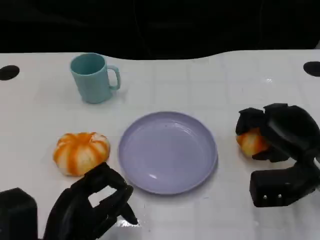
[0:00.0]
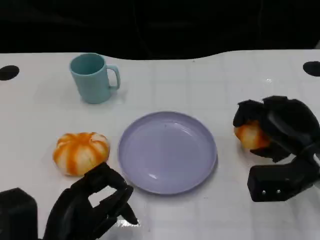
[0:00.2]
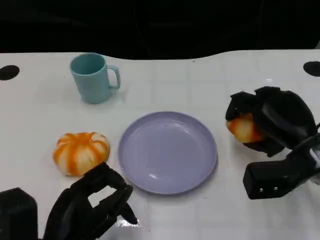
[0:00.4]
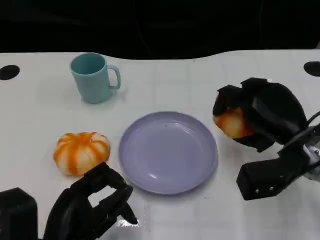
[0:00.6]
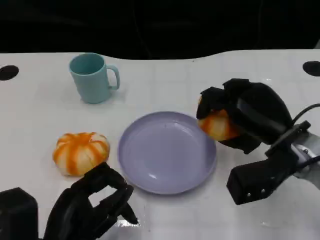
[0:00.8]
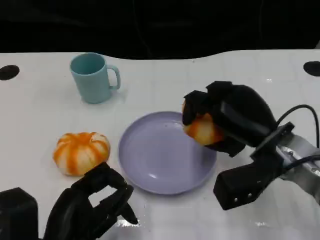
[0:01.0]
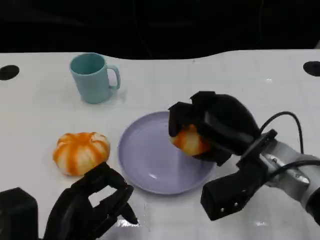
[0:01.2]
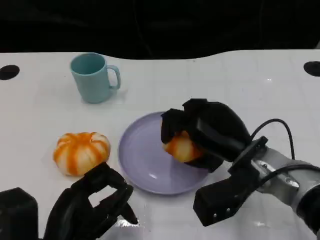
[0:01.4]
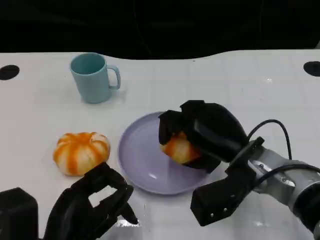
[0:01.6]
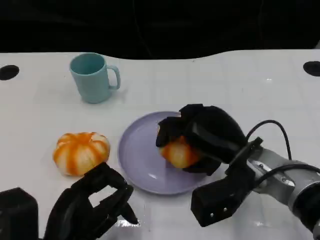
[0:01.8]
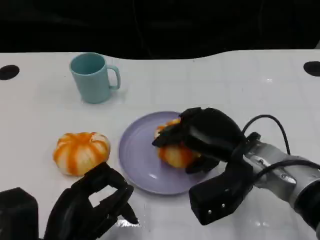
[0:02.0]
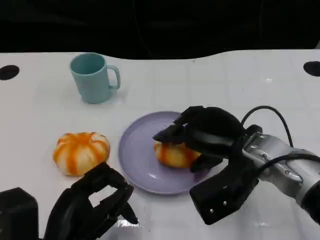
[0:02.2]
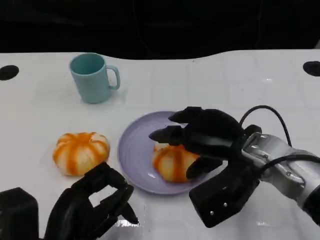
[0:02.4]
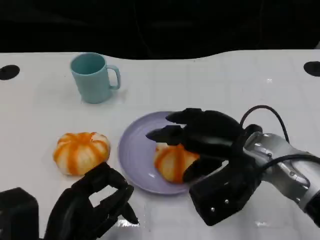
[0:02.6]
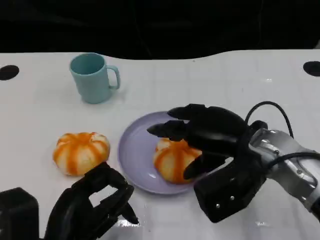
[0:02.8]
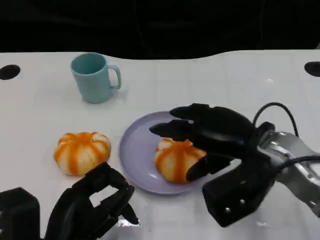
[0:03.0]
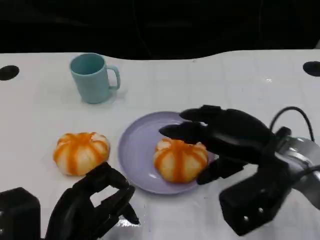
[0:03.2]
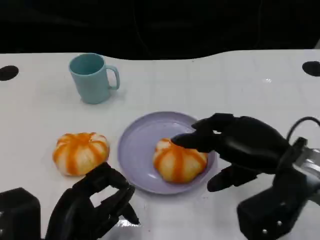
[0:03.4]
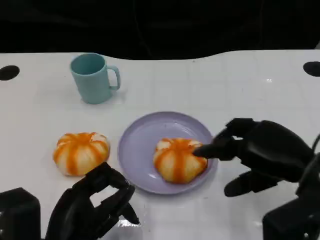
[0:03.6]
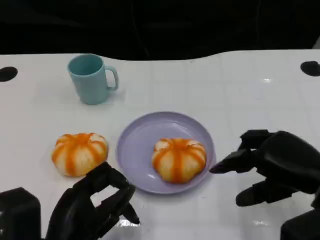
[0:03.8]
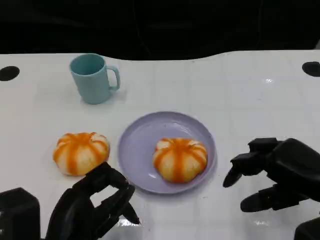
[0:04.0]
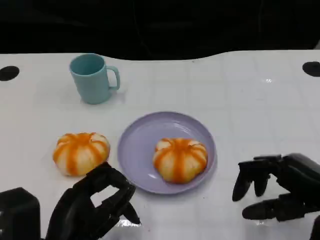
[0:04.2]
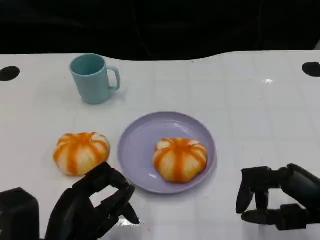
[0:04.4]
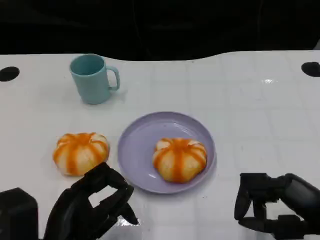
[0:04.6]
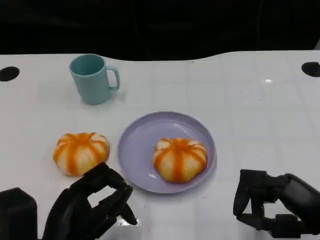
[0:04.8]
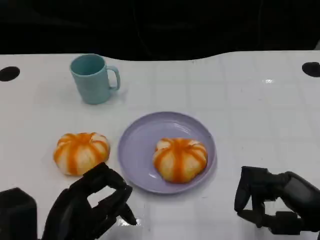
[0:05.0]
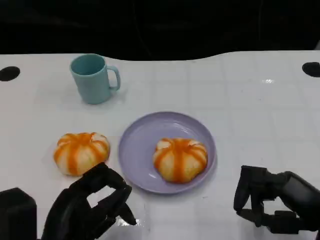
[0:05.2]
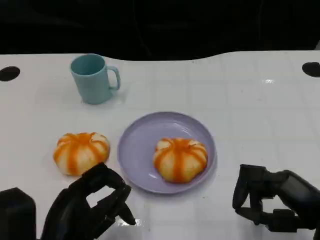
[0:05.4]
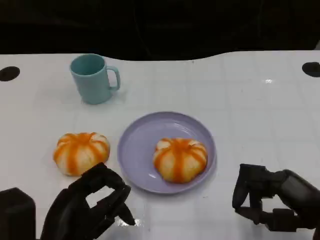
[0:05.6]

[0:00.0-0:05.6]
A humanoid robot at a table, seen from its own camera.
Task of the whole recording: Grasp the bread from the table and place it into the plate.
0:00.0 to 0:01.4: The right hand heads to the left, covering about 10 cm.
0:02.8 to 0:04.2: The right hand is displaced to the right and backward by roughly 15 cm.

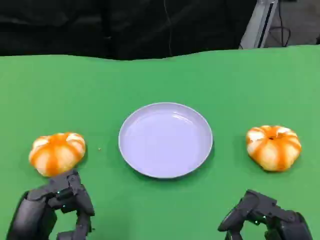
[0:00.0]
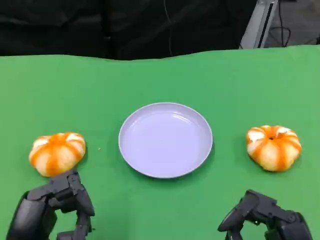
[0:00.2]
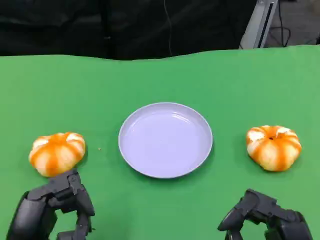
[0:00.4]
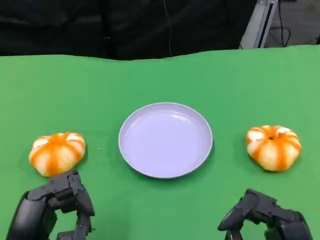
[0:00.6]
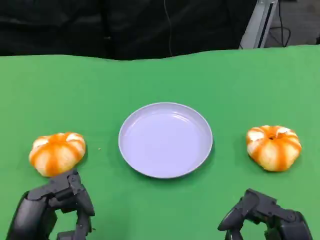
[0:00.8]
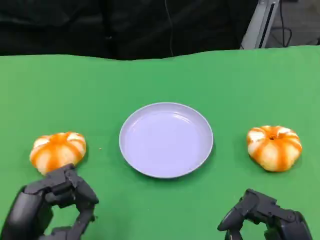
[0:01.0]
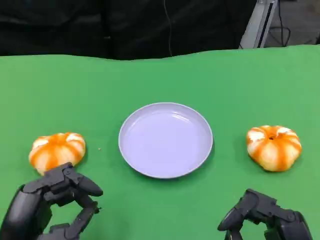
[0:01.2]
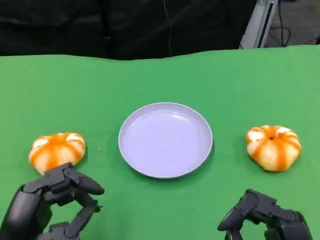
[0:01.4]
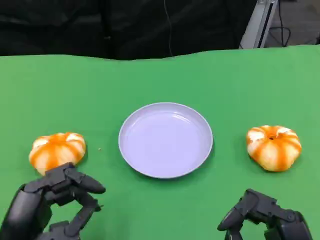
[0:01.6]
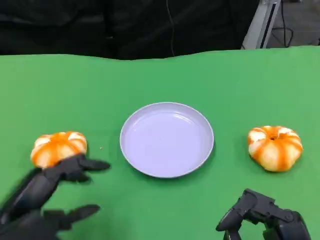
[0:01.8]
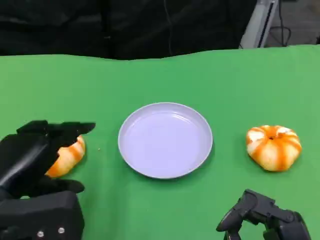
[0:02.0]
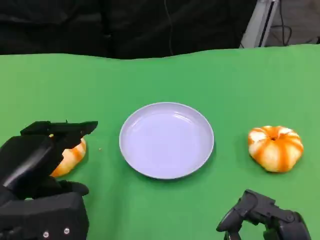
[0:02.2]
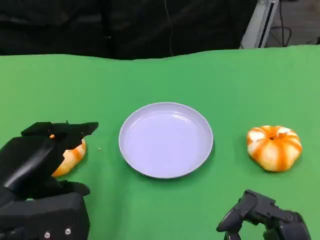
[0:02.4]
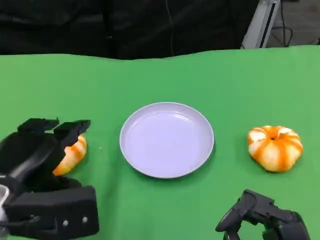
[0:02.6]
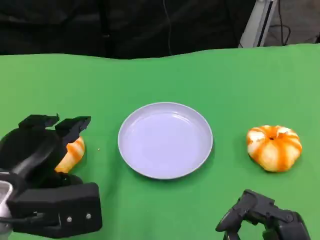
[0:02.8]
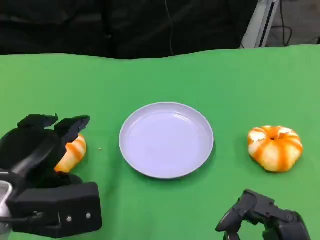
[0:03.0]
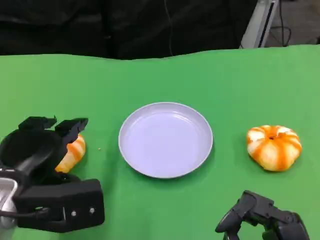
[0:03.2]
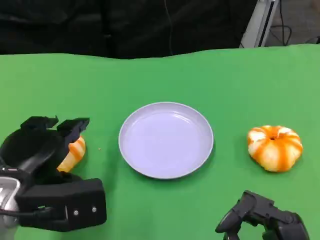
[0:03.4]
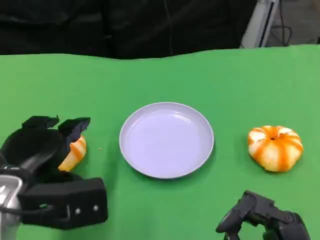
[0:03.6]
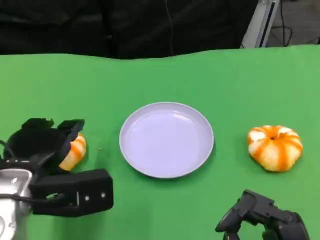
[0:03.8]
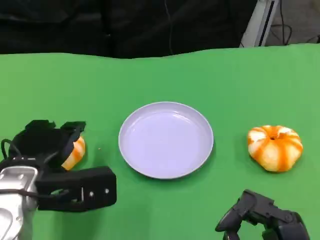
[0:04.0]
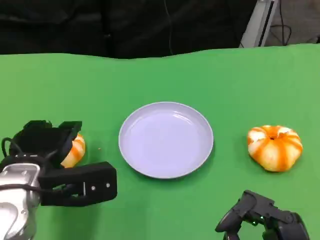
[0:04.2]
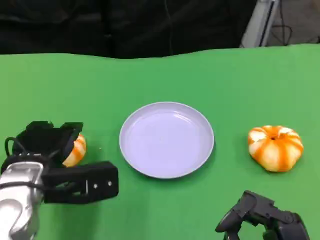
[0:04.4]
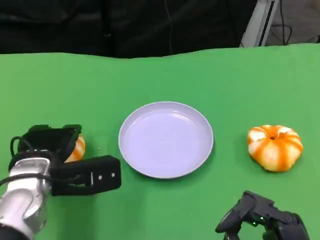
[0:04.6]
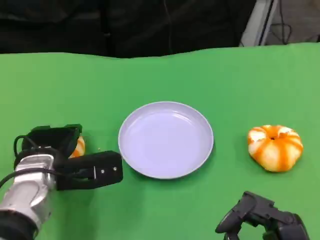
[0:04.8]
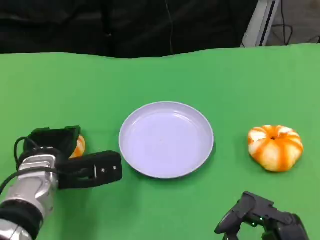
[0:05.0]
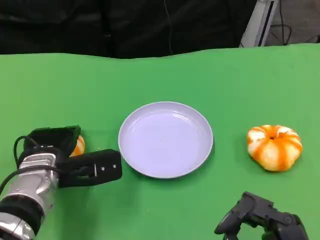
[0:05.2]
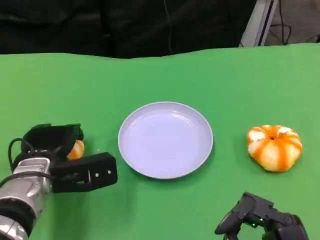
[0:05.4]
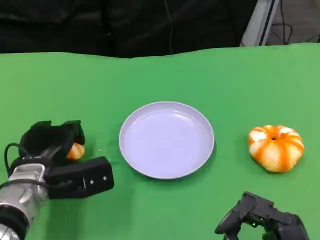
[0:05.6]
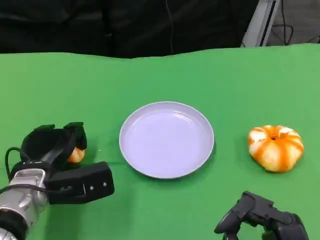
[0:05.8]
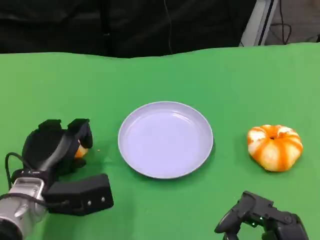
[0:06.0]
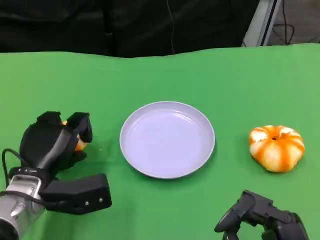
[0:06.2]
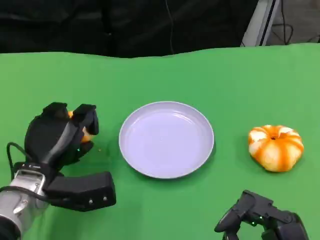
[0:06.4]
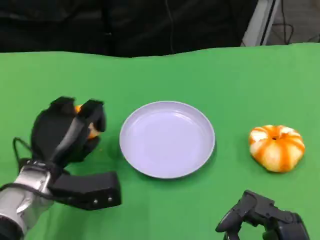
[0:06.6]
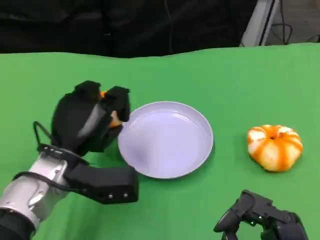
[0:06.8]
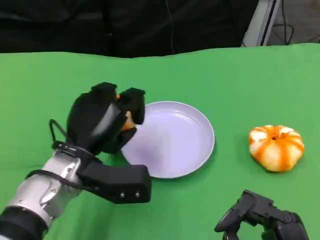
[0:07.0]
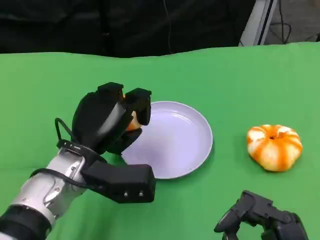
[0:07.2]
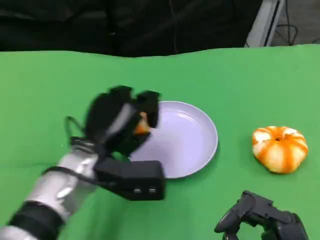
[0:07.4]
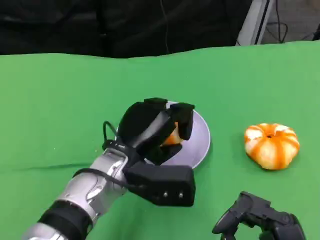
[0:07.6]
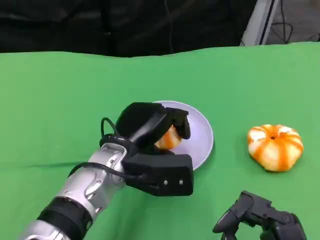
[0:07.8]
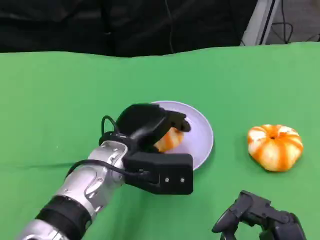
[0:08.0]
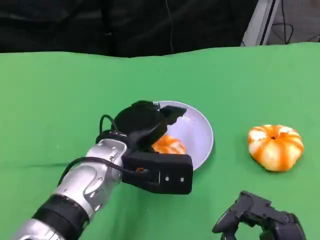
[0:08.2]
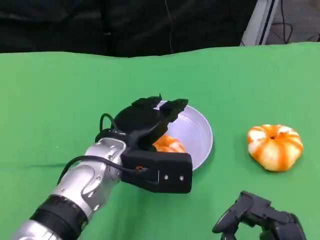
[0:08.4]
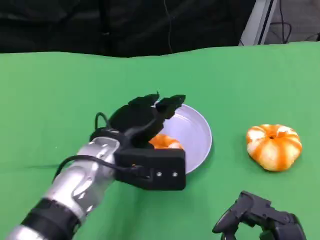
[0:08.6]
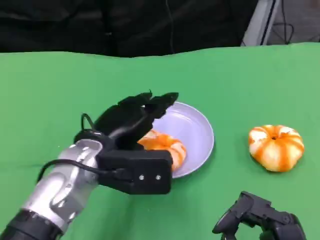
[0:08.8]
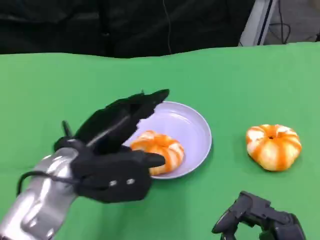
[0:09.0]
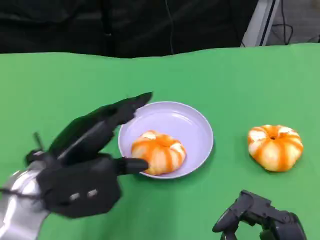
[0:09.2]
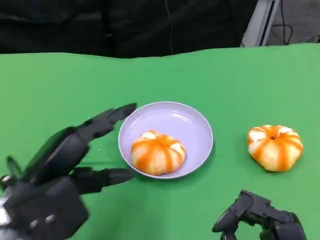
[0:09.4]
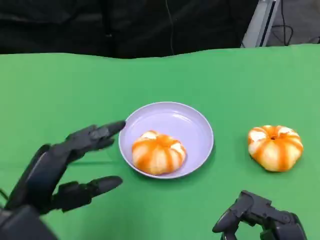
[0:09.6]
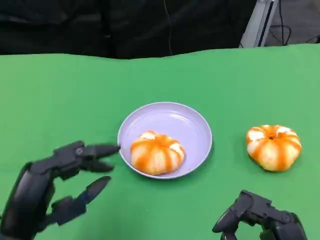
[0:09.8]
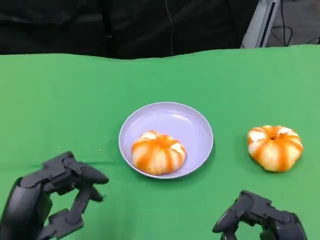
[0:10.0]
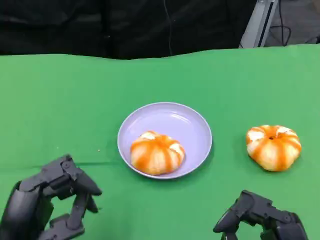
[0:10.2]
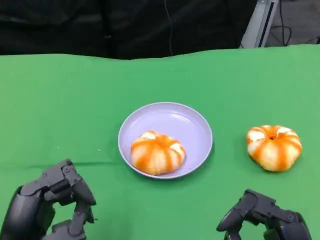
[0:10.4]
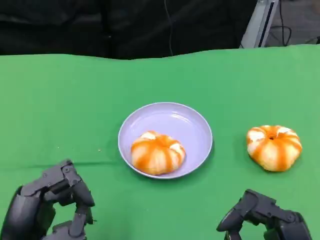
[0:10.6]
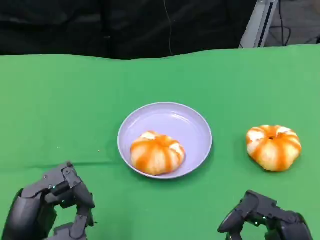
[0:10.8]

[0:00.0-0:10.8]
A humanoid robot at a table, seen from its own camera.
Task of the whole recording: Grasp the bread from the table and place it into the plate.
0:00.0 to 0:01.6: The hands move only a little.
0:01.6 to 0:03.0: The left hand moves forward and upward, some 10 cm.
0:03.0 to 0:04.6: The left hand travels forward and downward by about 10 cm.
0:06.2 to 0:07.8: The left hand moves to the right and upward, about 15 cm.
0:07.8 to 0:09.2: The left hand moves to the left and backward, roughly 15 cm.
0:09.2 to 0:10.8: The left hand travels backward and downward by approximately 10 cm.

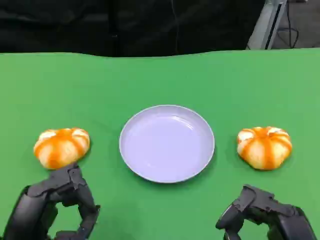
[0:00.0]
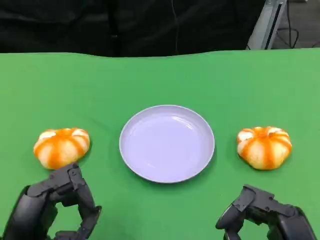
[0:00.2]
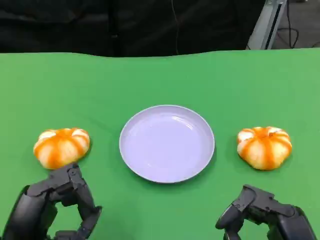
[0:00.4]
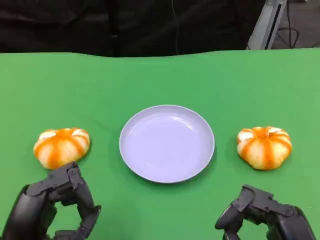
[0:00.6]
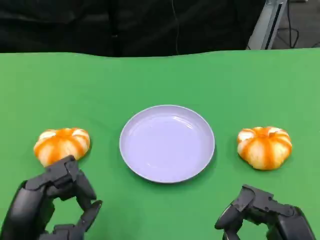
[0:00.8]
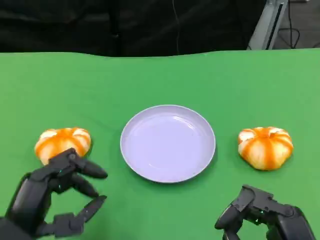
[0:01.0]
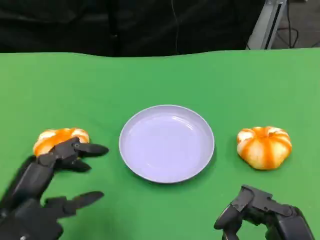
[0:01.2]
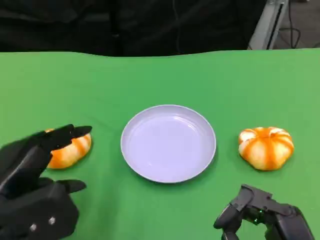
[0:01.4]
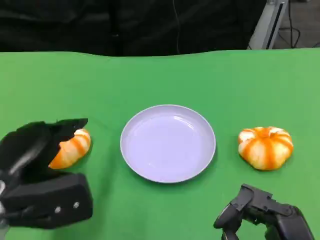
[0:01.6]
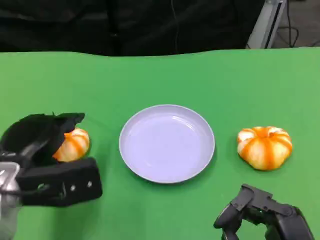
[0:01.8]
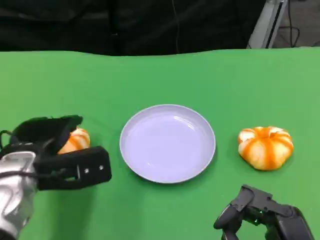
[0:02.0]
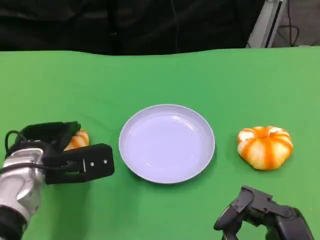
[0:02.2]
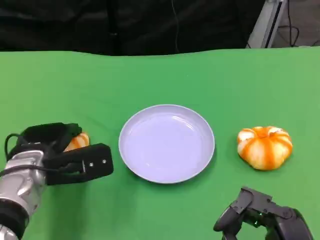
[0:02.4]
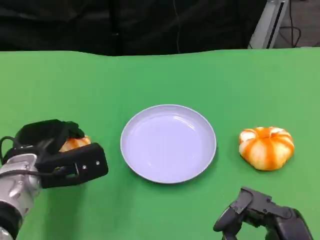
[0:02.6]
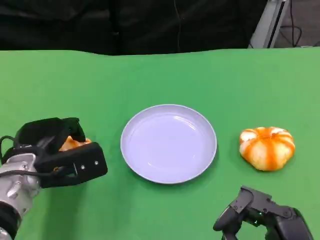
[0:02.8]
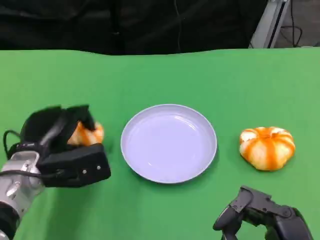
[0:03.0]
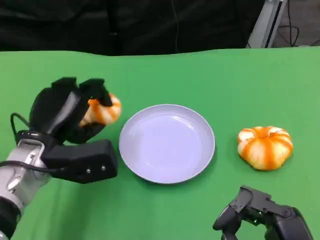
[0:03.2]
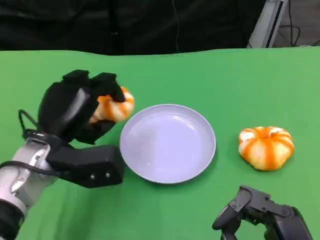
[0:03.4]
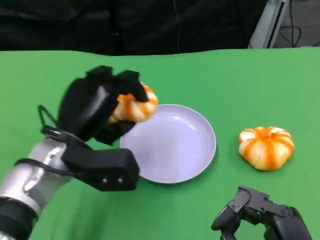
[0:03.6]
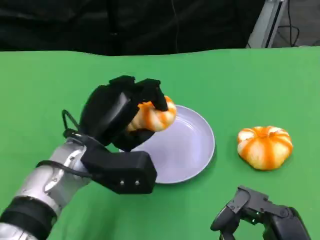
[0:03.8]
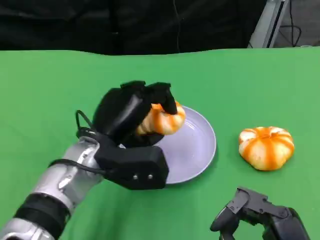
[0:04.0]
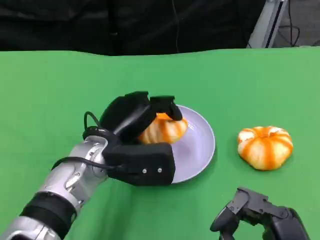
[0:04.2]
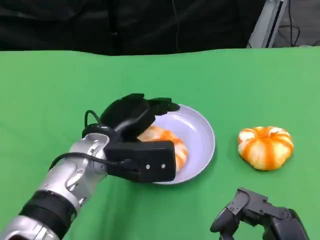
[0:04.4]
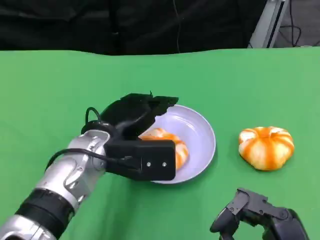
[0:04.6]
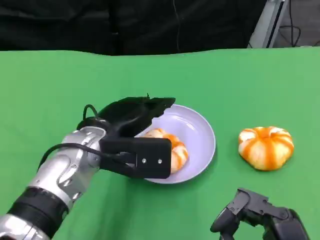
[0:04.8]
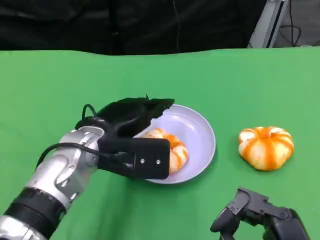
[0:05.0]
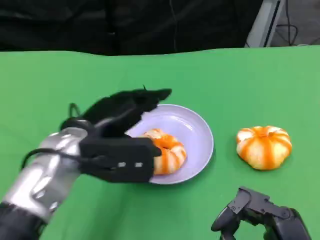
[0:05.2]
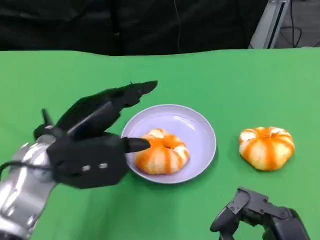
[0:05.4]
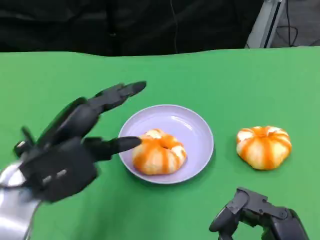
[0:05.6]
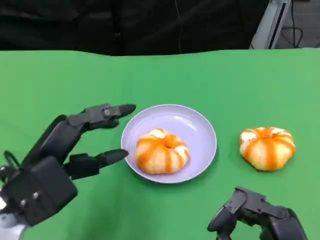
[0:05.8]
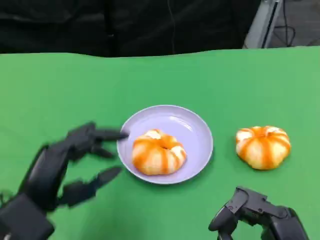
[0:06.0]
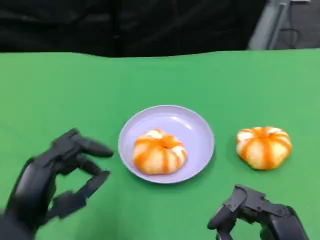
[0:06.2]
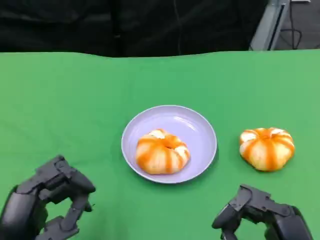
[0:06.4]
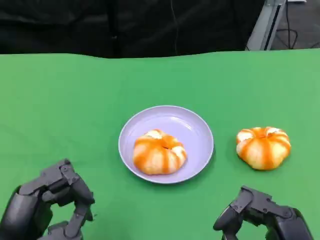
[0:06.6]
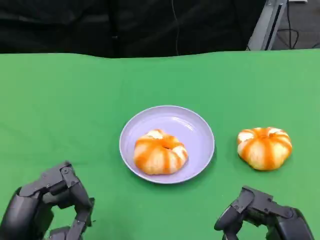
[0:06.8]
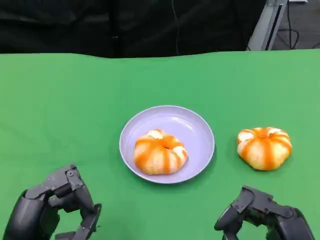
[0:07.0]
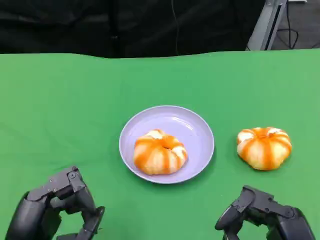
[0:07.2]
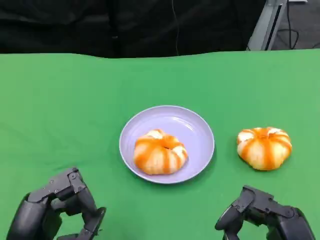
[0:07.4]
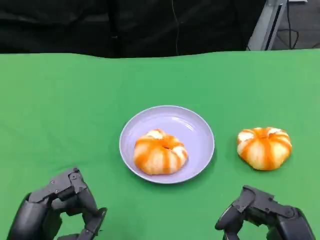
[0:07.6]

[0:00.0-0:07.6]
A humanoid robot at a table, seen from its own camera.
Task of the whole recording: Grasp the bread from the table and place it into the plate.
0:00.0 to 0:01.6: The left hand is displaced forward by roughly 10 cm.
0:01.6 to 0:03.0: The left hand heads forward, covering about 5 cm.
0:03.0 to 0:04.6: The left hand heads to the right, covering some 10 cm.
0:04.6 to 0:06.0: The left hand travels backward and to the left by roughly 15 cm.
0:06.0 to 0:07.6: The left hand ends up about 5 cm from where it was.
